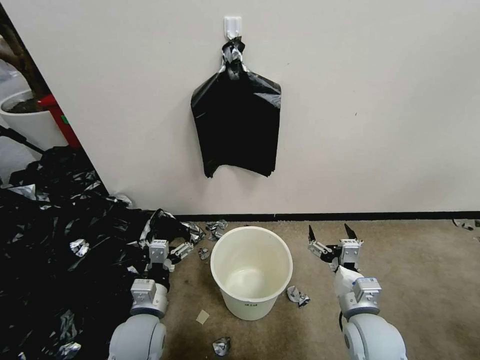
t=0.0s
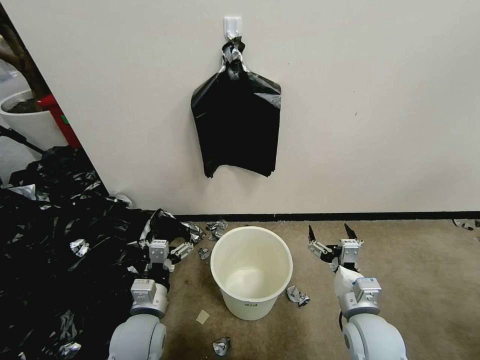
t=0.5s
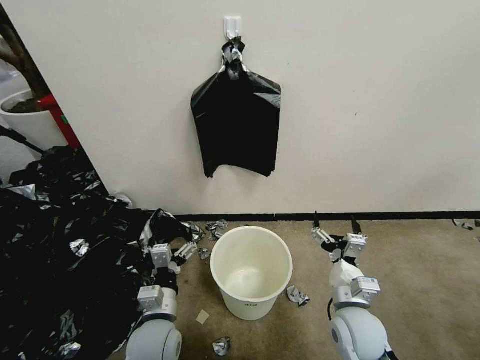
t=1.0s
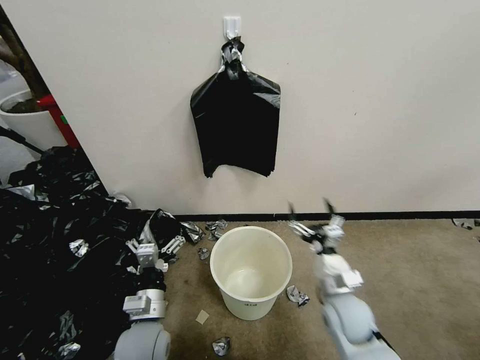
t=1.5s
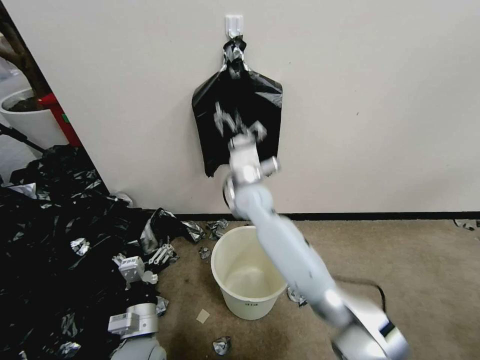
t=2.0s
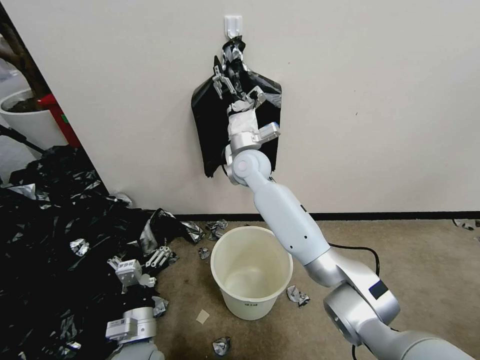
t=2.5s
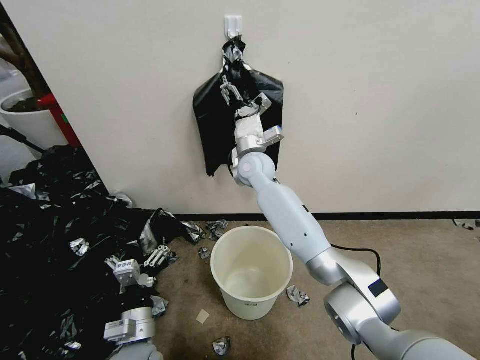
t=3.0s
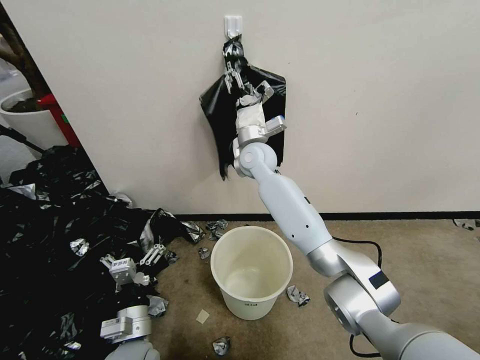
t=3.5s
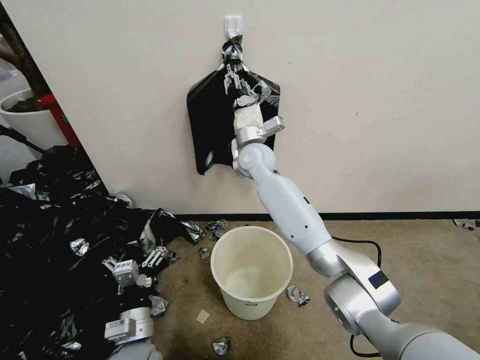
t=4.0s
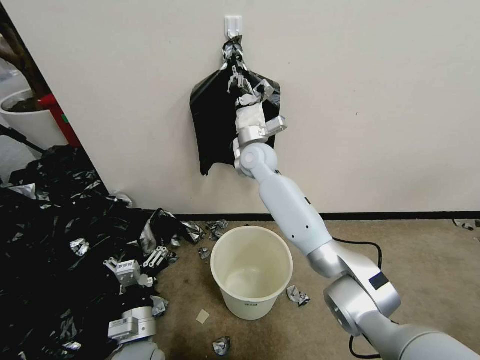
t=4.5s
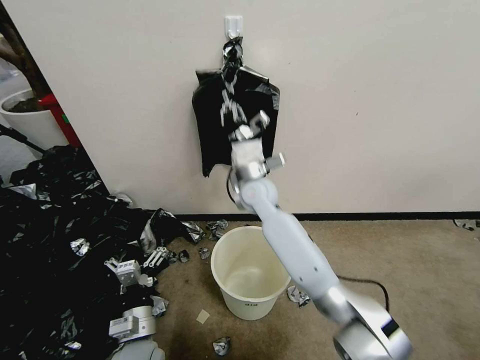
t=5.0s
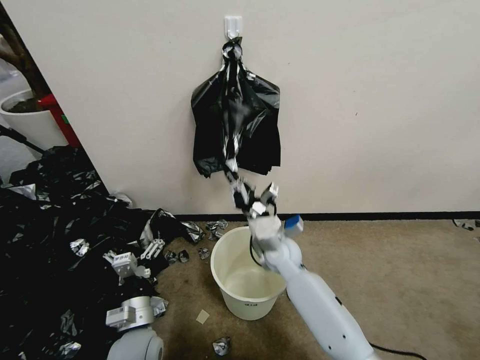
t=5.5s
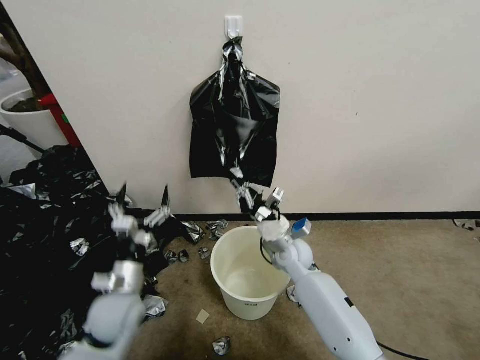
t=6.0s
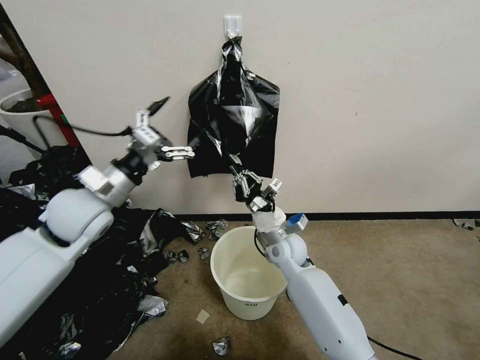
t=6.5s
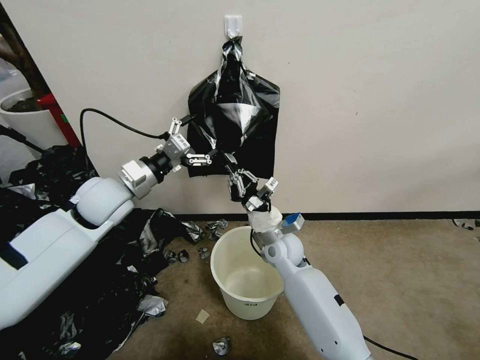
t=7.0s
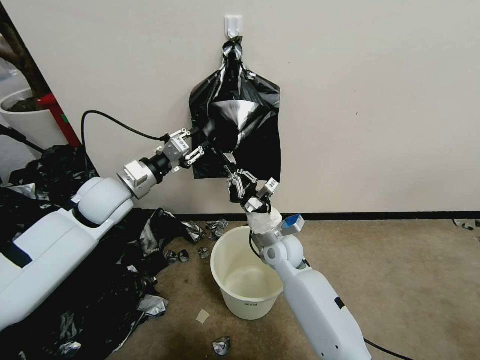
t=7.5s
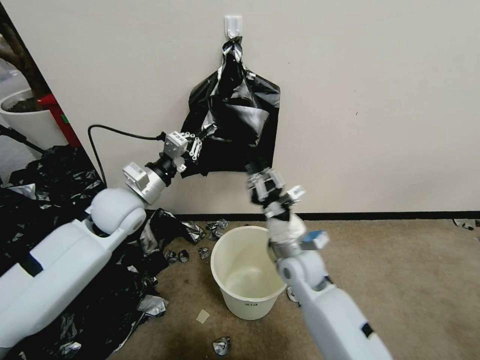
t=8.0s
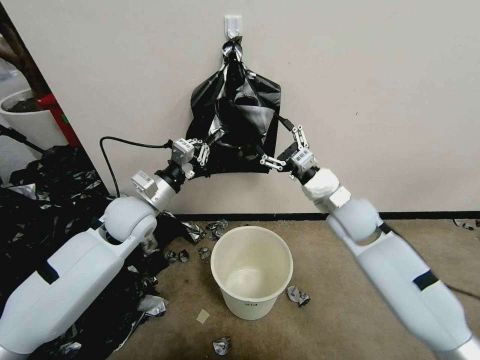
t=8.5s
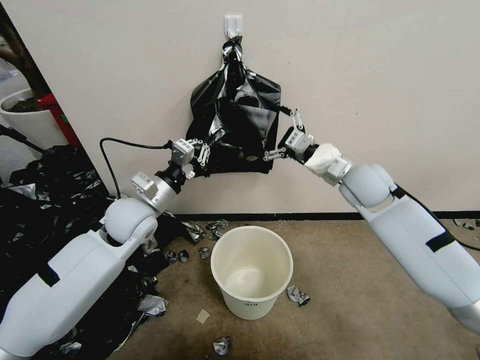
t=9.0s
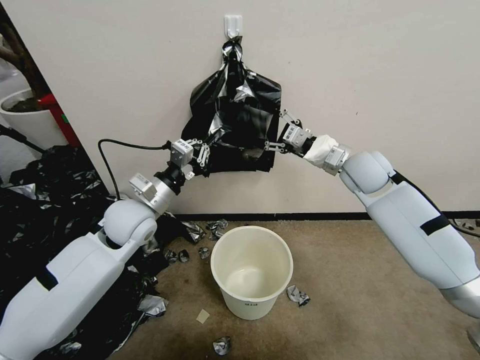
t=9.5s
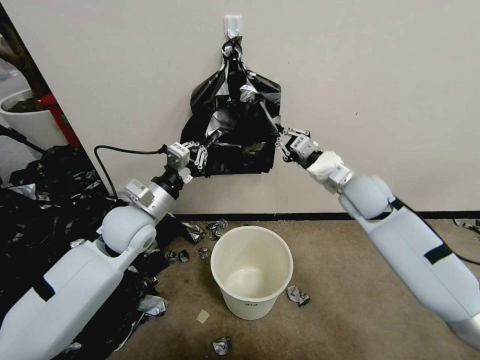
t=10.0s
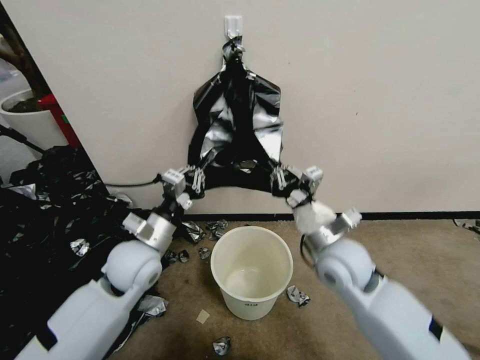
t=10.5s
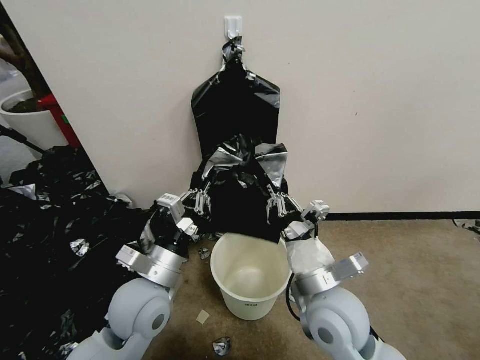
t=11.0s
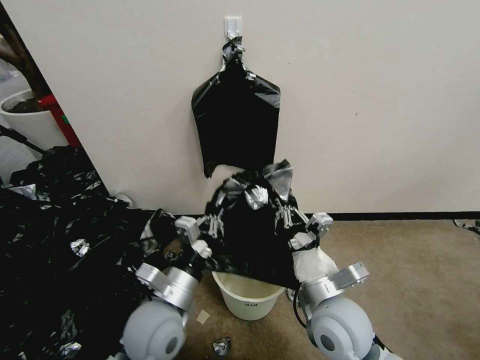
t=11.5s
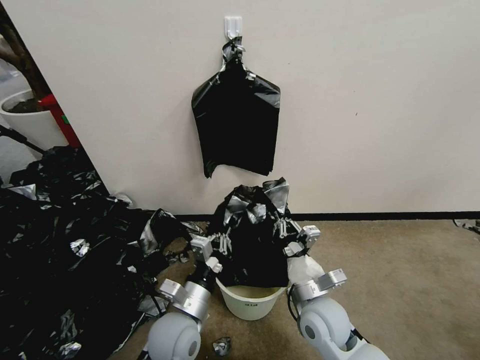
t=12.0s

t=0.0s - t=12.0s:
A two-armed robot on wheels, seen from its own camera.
Task of the whole recording: Place a trash bag onto the trash bin.
t=2.0s - t=4.0s: The right gripper heads forward and upward, covering approximately 10 cm, and closes its fingers.
t=4.0s - t=6.0s: The right gripper travels downward, backward and to the right by about 25 cm. Meanwhile the left gripper goes some 10 cm forward.
t=6.0s - t=8.0s: The right gripper travels backward and upward by about 10 cm; the left gripper travels forward and upward by about 20 cm, and closes up.
t=8.0s - t=10.0s: The right gripper moves to the right, upward and forward, about 25 cm, and opens, then closes again.
t=10.0s - t=12.0s: The left gripper is displaced backward, downward and to the right by about 25 cm. The right gripper shifts some 30 cm backward, downward and to the left.

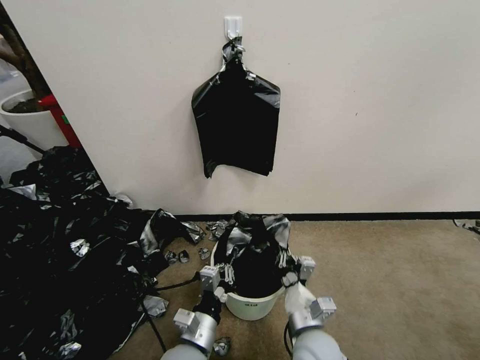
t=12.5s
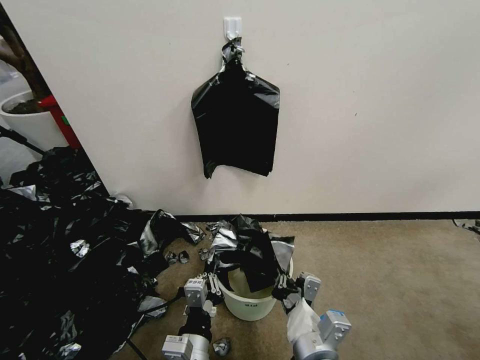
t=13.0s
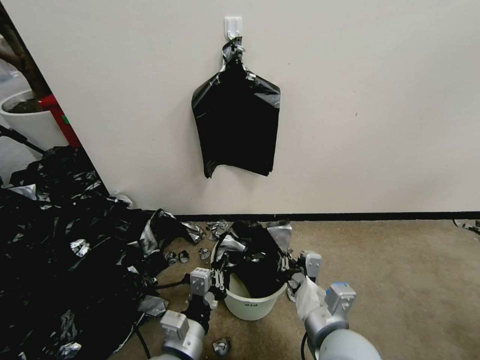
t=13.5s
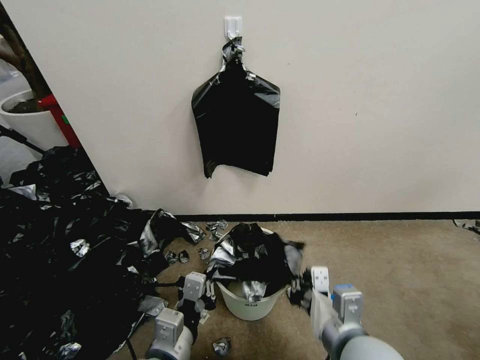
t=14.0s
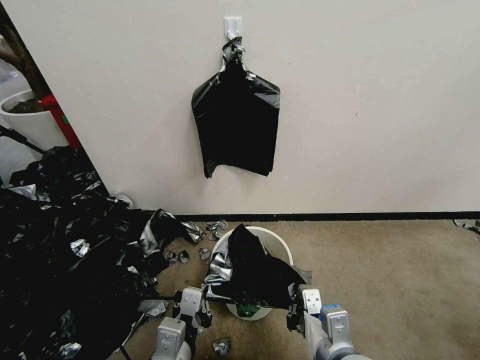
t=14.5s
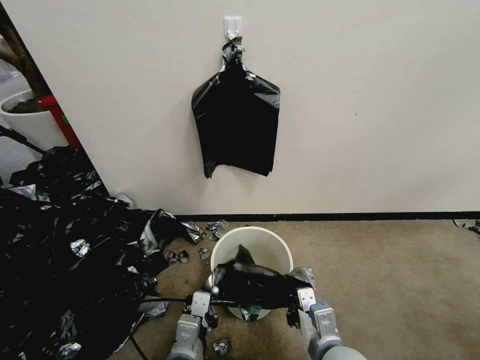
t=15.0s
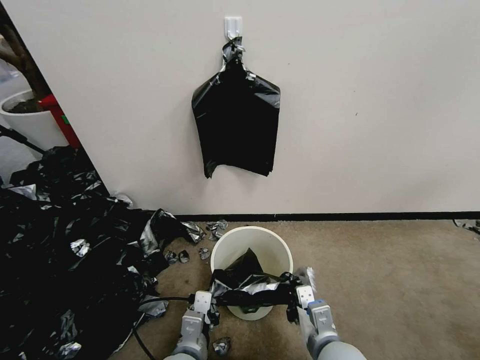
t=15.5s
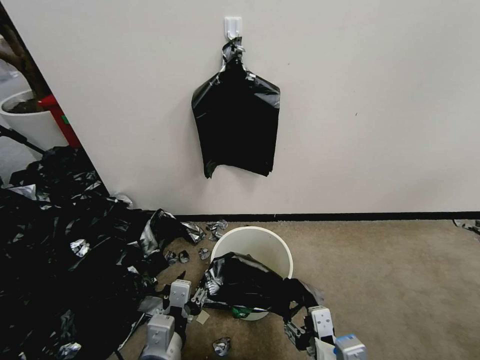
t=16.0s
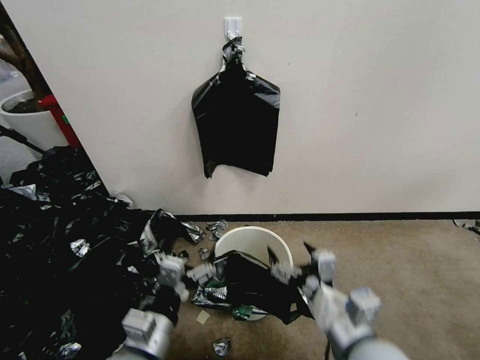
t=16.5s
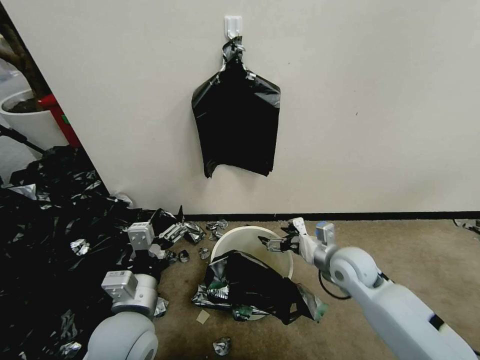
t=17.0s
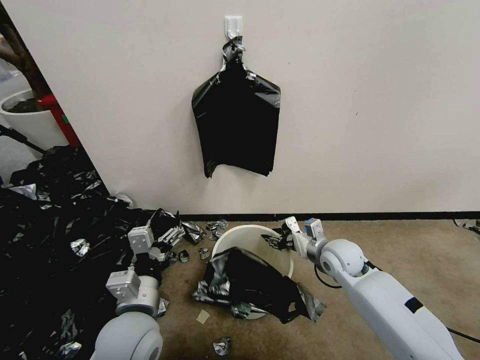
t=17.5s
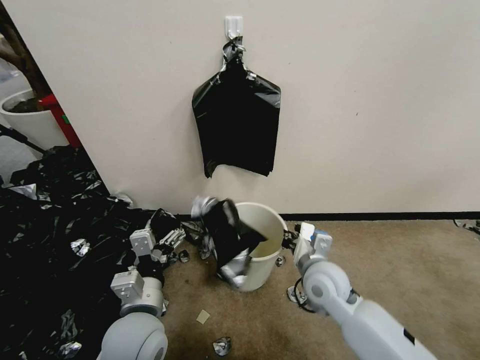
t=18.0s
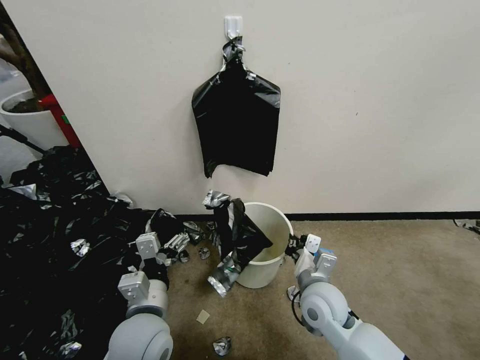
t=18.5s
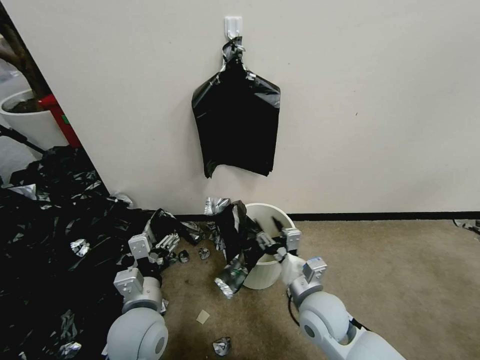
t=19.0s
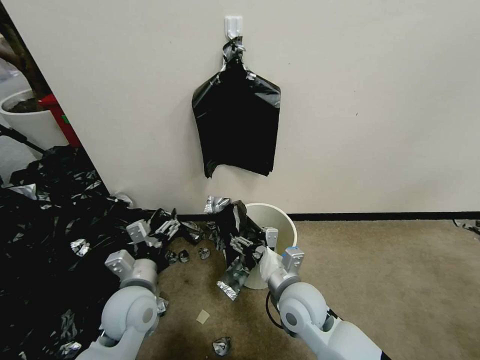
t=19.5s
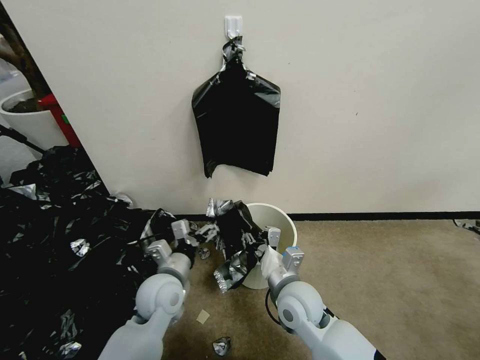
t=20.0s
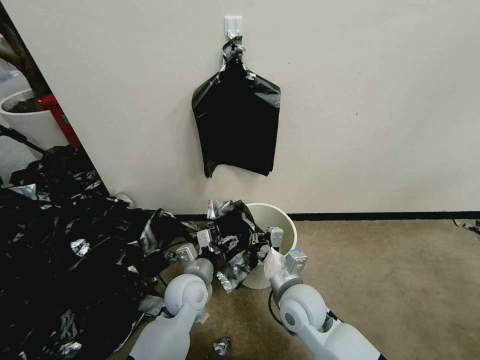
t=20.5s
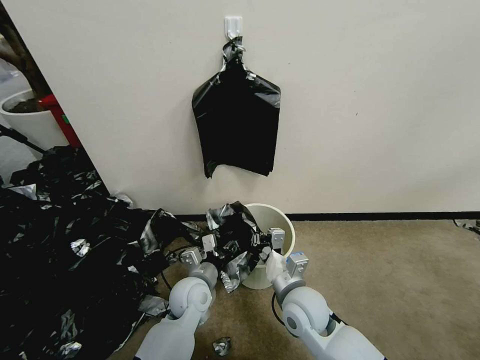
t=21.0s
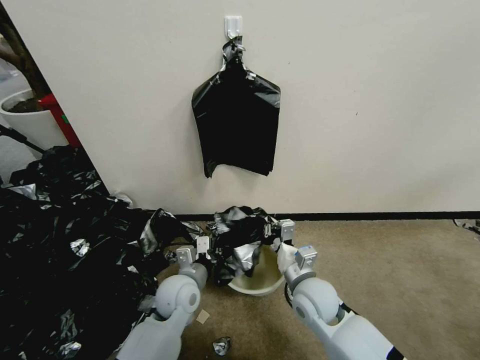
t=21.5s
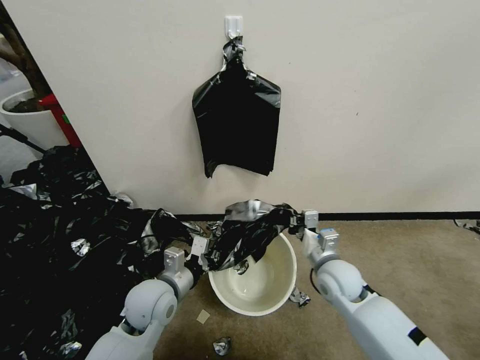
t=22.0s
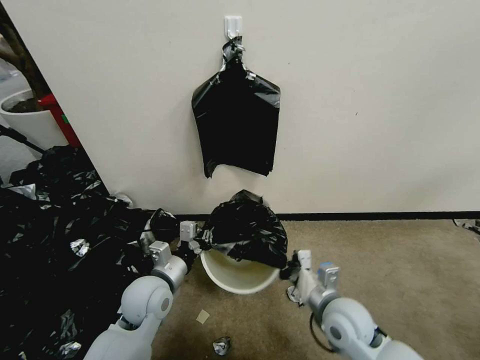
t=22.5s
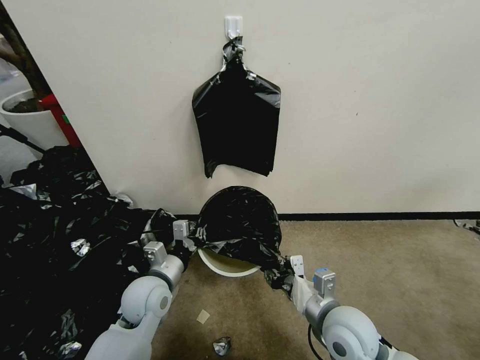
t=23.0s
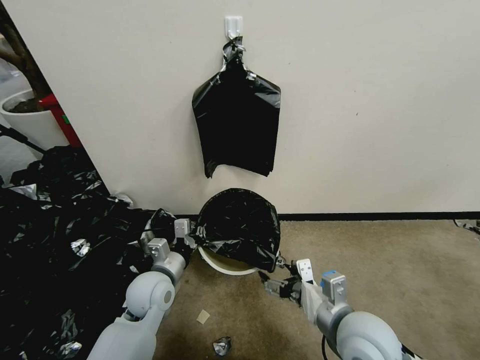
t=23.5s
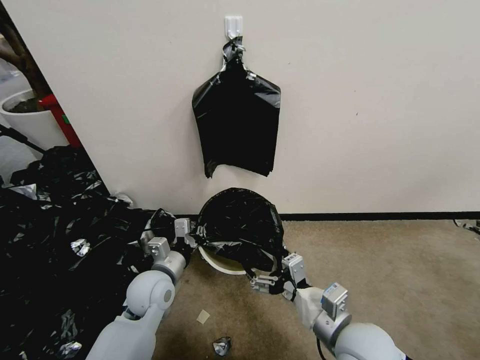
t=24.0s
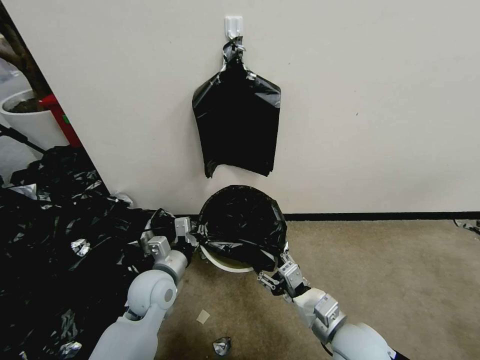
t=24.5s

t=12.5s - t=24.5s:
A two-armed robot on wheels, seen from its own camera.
Task of the whole recording: Place a trash bag onto the trash bin.
t=12.5s - t=14.5s: The left gripper goes about 10 cm upward. The right gripper moves upward and backward, about 15 cm.
t=14.5s - t=16.5s: The right gripper goes downward and returns, about 10 cm each way, and opens up, while the left gripper goes downward and returns, about 10 cm each way, and opens up.
t=16.5s - t=18.5s: The right gripper heads forward and downward, covering approximately 20 cm, and closes its fingers. The left gripper goes approximately 5 cm forward.
t=18.5s - t=20.5s: The right gripper opens, then closes again. The left gripper shifts some 15 cm forward and downward.
t=20.5s - t=22.5s: The left gripper goes about 10 cm to the left and upward, and closes up. The right gripper goes roughly 10 cm to the right.
t=22.5s - t=24.5s: The right gripper heads backward, covering some 5 cm, moves approximately 10 cm upward and comes back, and opens its fingers.

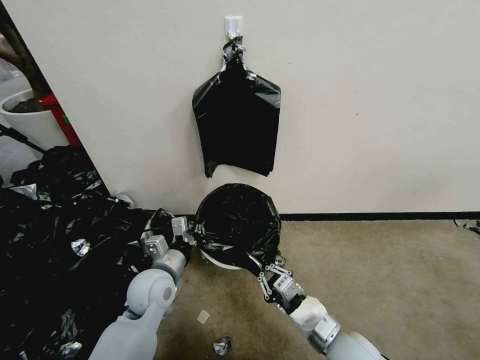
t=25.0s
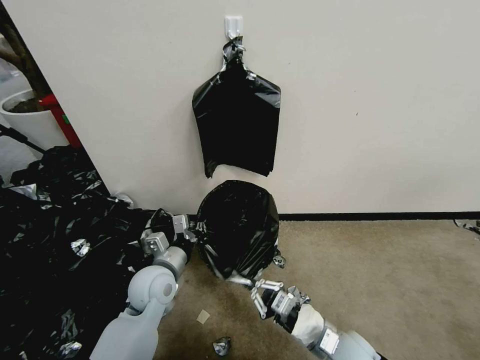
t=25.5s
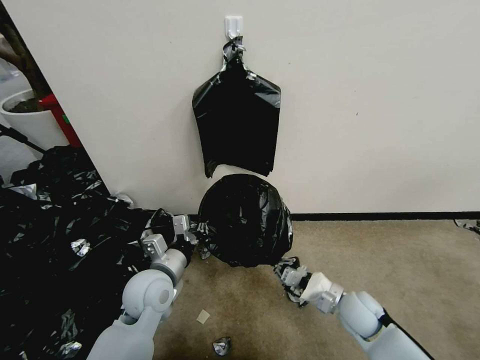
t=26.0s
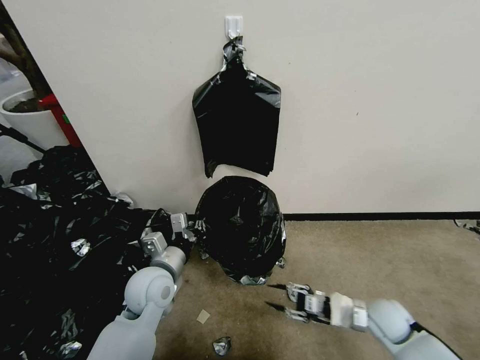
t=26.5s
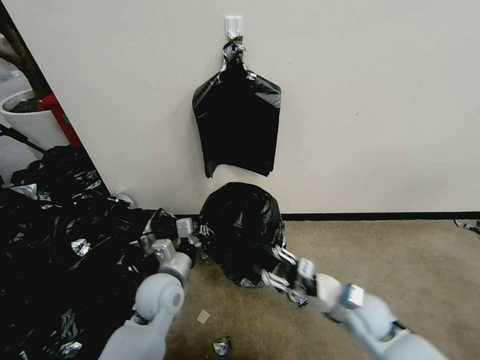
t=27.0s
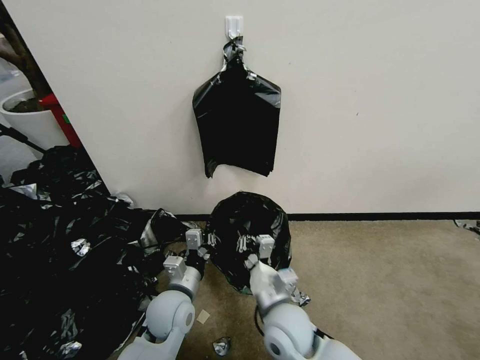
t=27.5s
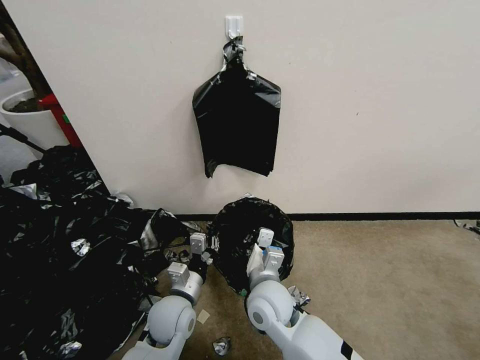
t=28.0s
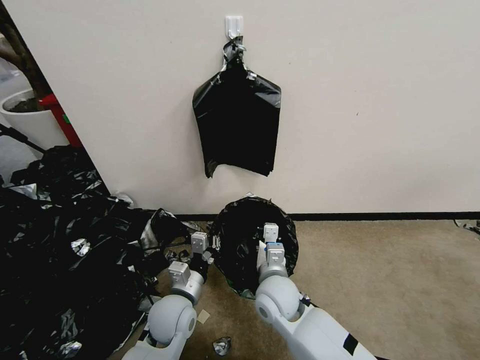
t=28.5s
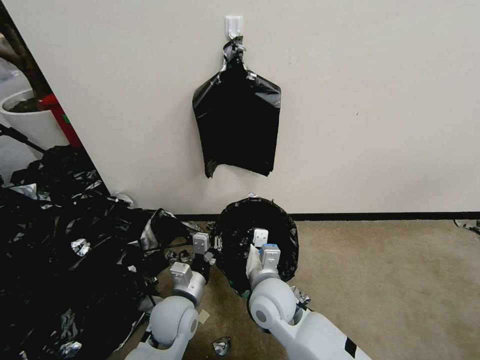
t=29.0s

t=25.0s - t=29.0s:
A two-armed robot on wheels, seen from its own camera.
Task of the whole recording: Place a trash bag onto the trash bin.
t=25.0s - t=27.0s: The right gripper shifts approximately 10 cm forward and to the right, and opens.
t=27.0s - t=29.0s: The left gripper changes place by roughly 5 cm. The right gripper travels to the left by some 20 cm, and closes up.
